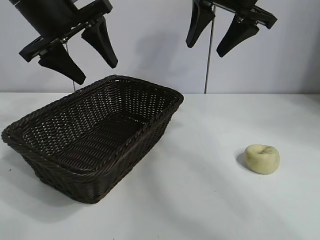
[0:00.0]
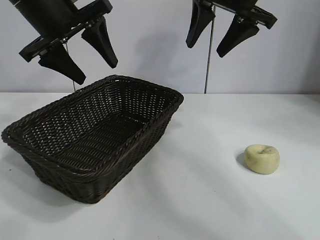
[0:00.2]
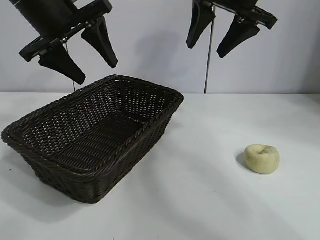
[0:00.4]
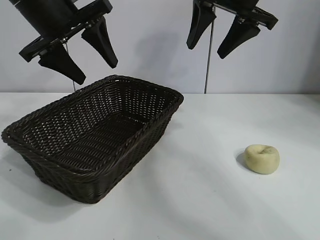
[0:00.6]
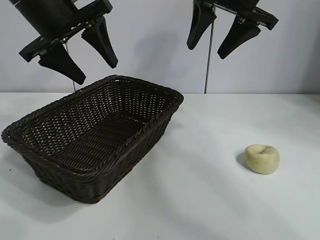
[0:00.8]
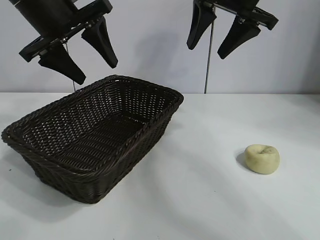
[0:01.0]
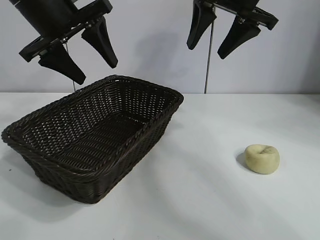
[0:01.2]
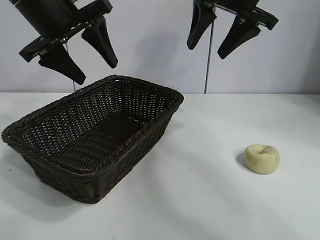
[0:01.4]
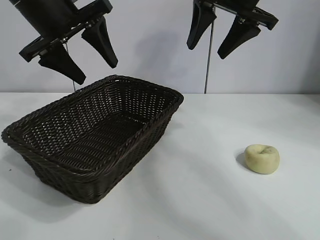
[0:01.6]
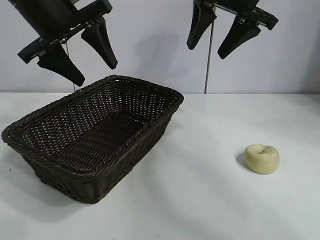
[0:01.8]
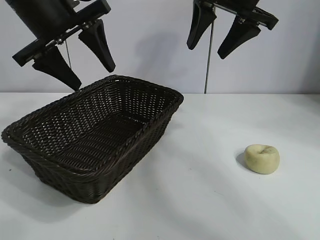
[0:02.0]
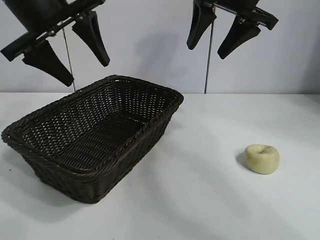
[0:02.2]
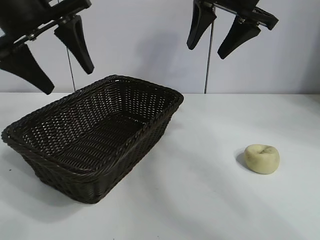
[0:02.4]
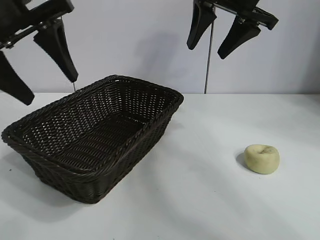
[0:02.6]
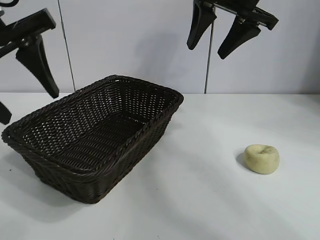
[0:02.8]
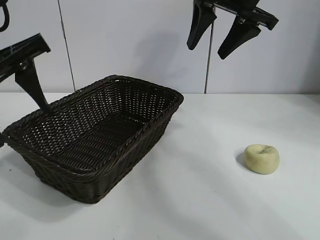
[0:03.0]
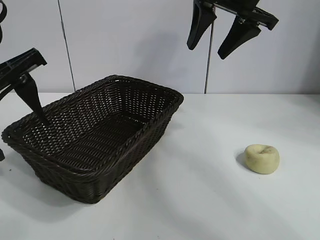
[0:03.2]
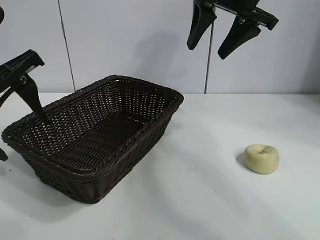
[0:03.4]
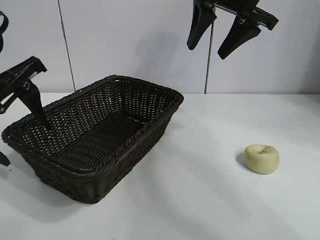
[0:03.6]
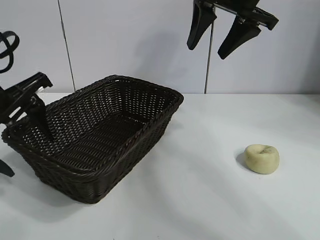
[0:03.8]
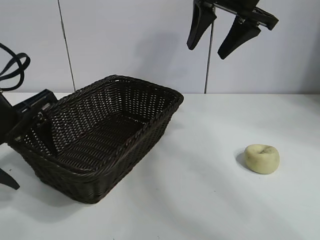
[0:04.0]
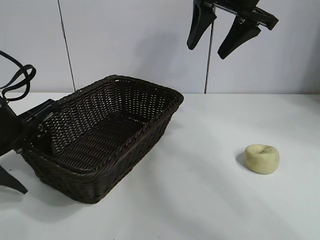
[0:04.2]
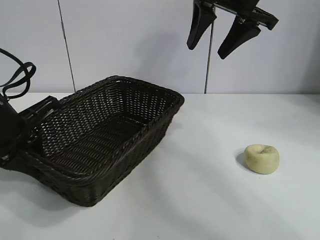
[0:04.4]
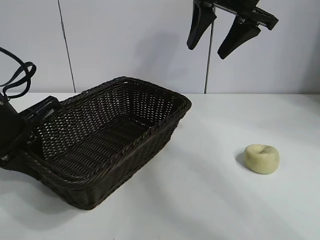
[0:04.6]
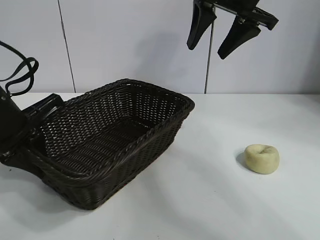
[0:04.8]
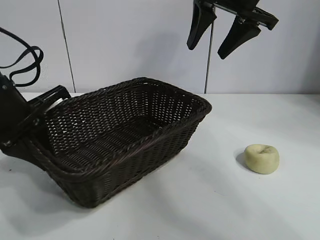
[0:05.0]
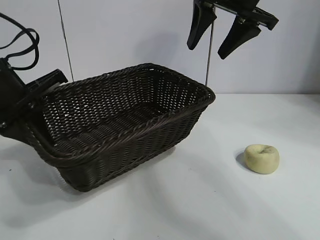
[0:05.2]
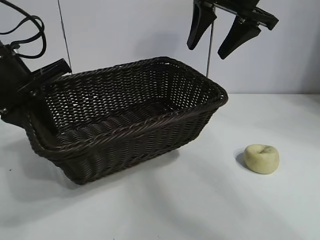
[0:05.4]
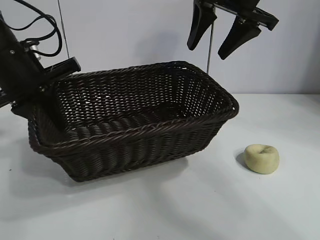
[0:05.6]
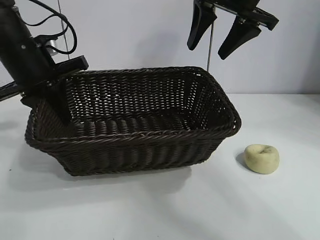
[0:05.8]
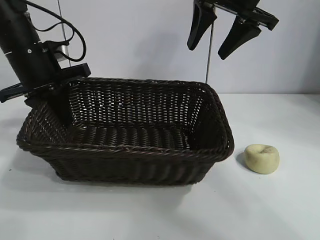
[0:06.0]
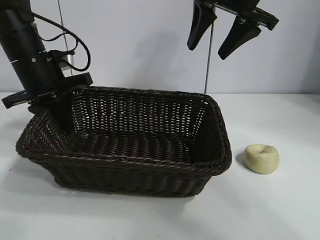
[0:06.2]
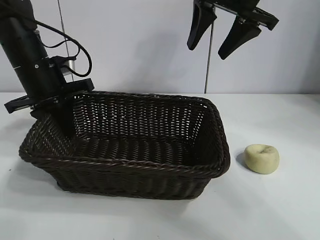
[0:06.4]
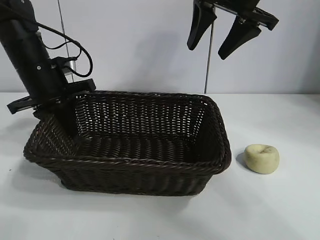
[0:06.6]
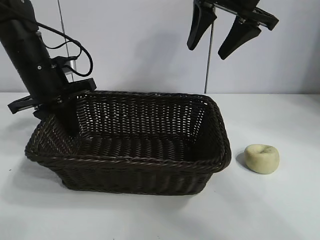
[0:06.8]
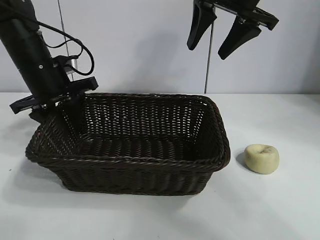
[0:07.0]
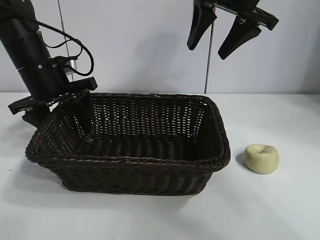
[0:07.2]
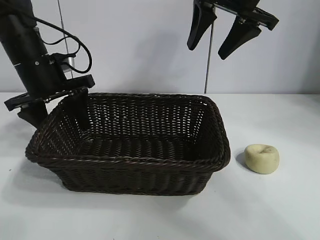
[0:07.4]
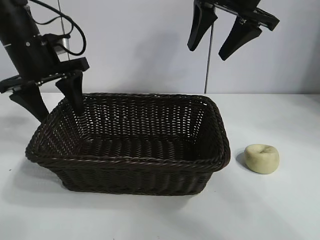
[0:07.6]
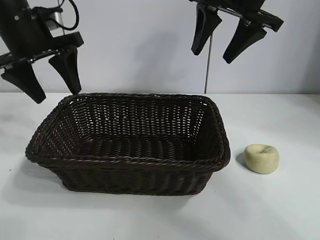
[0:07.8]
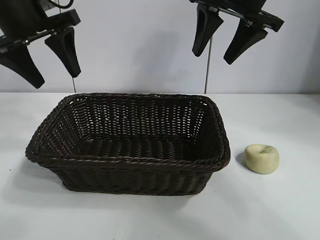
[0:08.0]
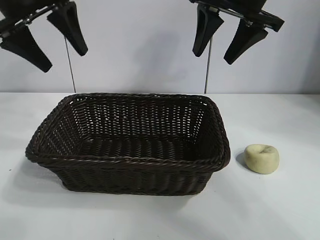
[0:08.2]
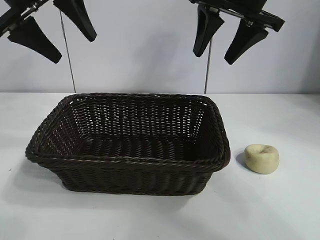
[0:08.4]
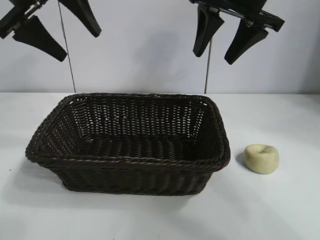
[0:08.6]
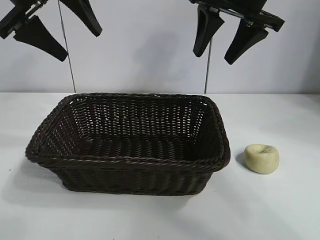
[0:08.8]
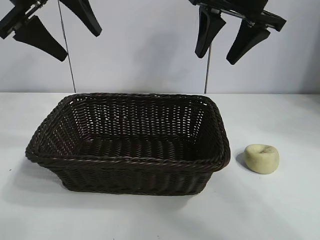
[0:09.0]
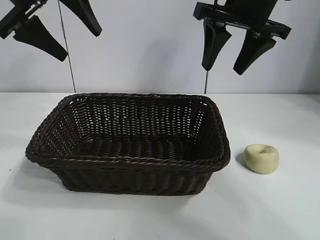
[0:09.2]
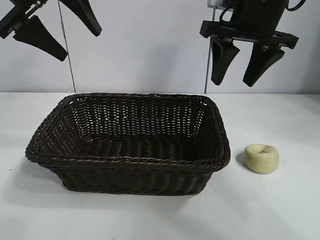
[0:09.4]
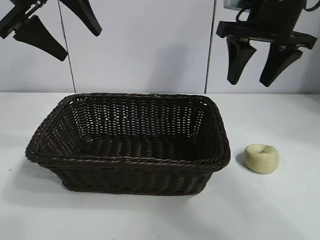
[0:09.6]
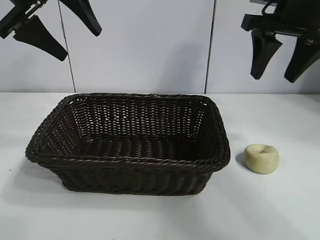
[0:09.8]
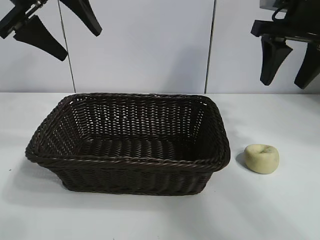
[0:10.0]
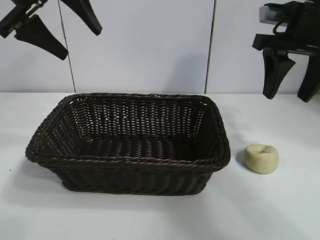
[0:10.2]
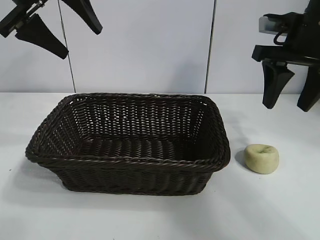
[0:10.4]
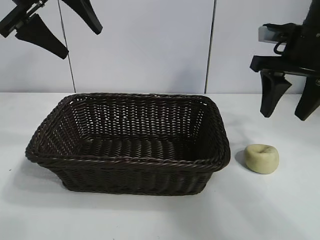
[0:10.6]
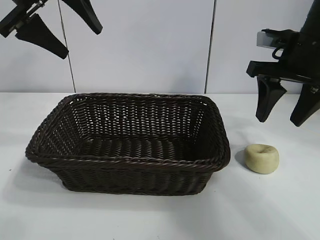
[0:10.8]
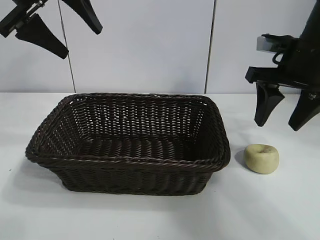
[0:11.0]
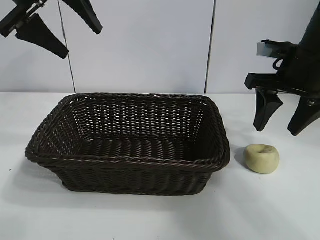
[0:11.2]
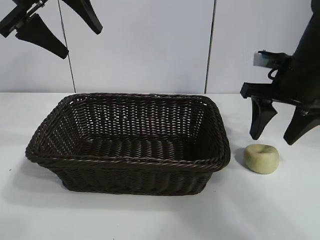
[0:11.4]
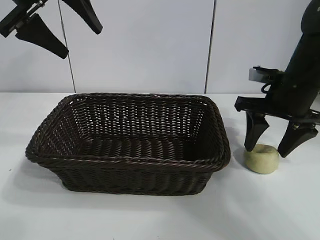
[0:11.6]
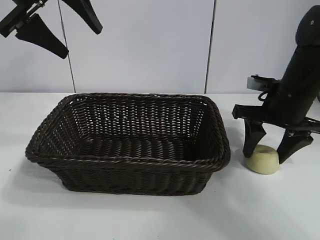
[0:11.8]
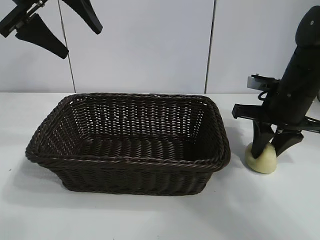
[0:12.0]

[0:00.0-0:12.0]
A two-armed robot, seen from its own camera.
Task of the whole recording: pick up the egg yolk pastry and put it into the basket.
Step, 0:01.8 to 0:04.4: Grasp the basket with left gripper.
Step, 0:04.6 to 0:07.2: Place the basket in the center of view with left gripper.

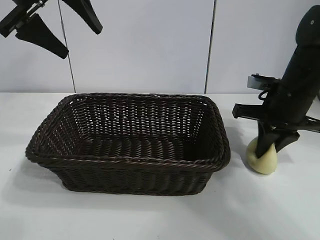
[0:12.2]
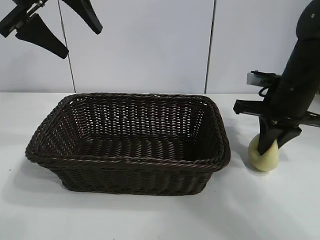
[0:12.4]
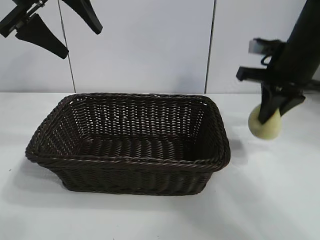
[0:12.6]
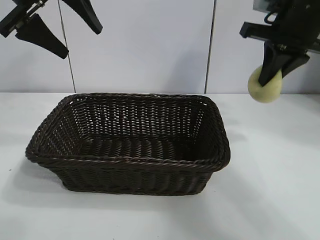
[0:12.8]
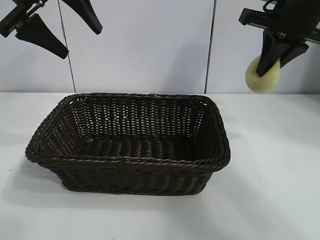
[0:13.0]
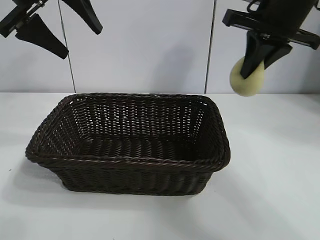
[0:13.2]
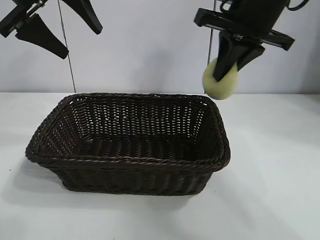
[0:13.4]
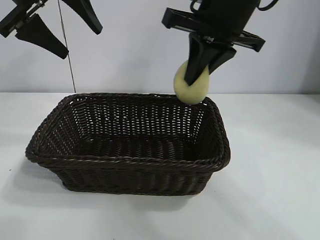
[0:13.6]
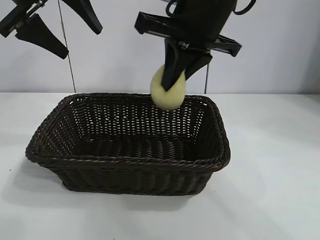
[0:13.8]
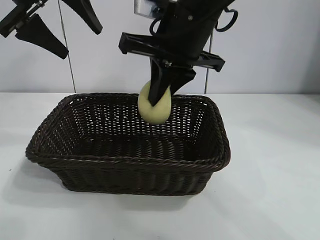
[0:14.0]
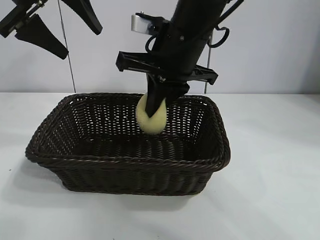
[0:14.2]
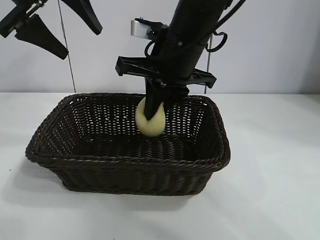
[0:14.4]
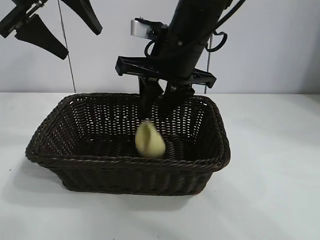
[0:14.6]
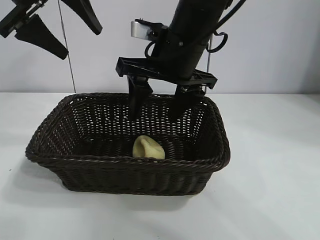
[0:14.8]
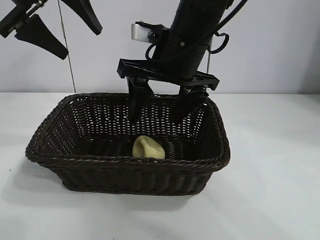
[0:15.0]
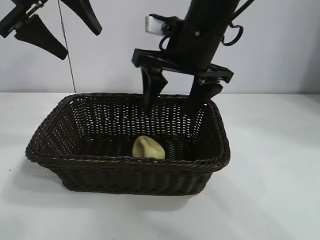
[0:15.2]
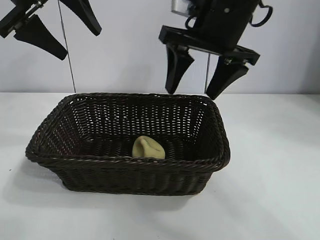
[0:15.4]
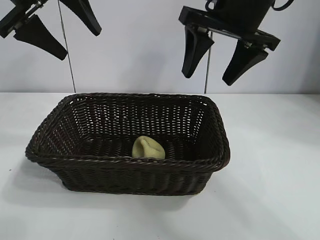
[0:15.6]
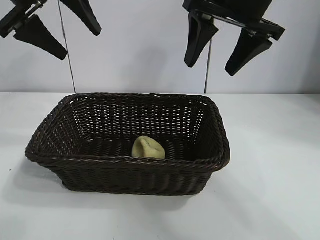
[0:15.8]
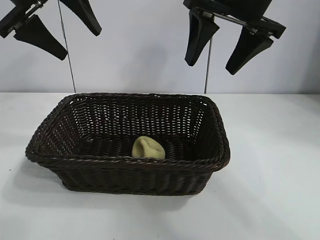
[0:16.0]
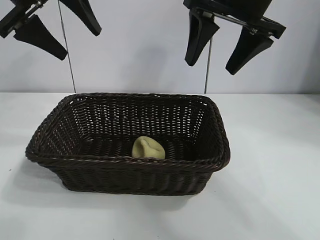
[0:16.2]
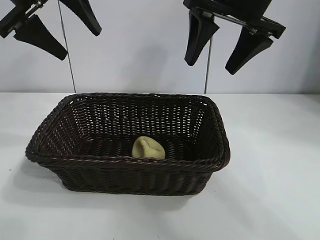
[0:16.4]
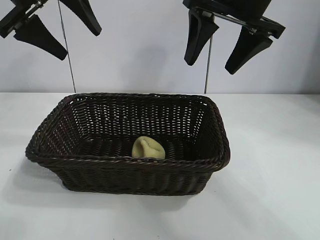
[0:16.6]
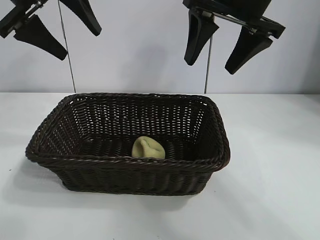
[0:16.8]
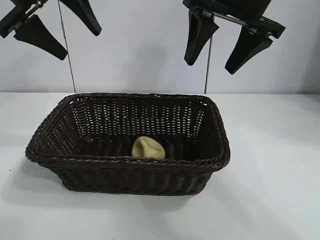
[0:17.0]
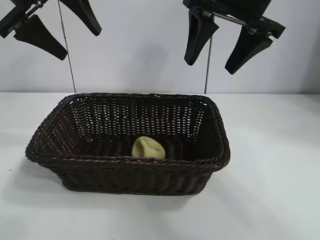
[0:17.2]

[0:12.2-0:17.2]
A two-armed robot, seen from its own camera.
Task of the whole recording: pick up the egg yolk pastry and put it into the basket.
Step, 0:12.4 to 0:14.8: Place the egg yolk pastry in the basket with right gripper.
